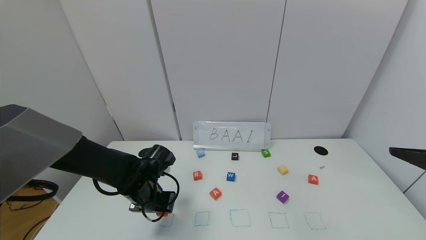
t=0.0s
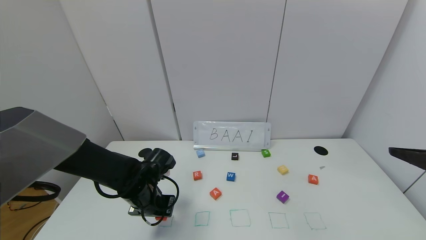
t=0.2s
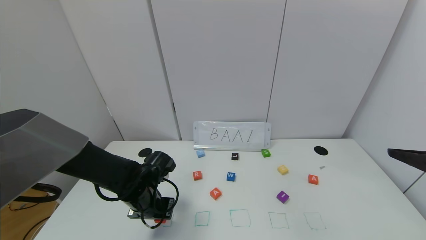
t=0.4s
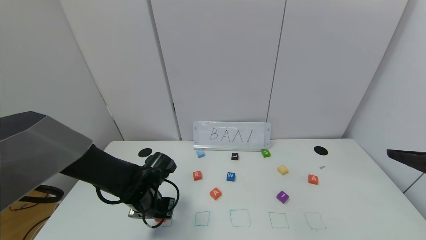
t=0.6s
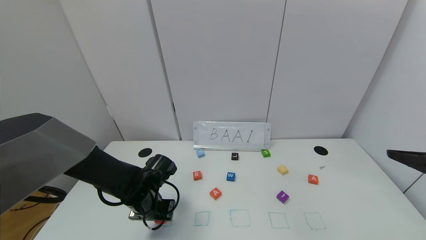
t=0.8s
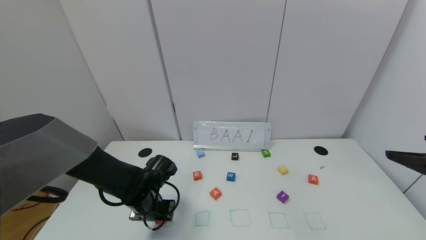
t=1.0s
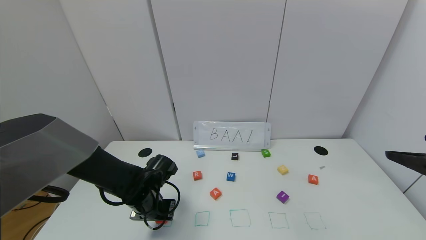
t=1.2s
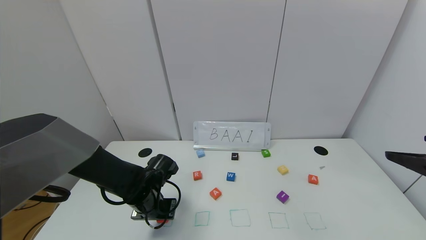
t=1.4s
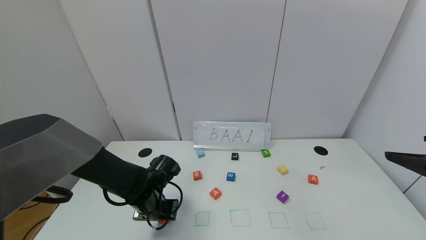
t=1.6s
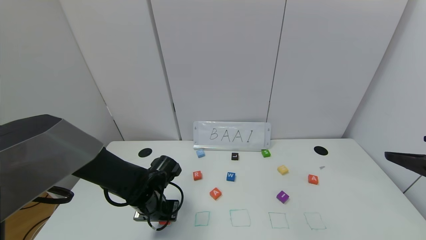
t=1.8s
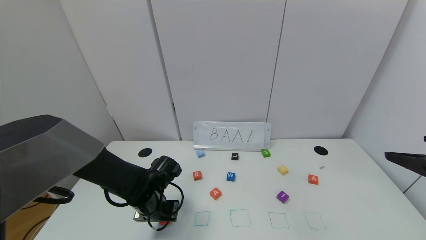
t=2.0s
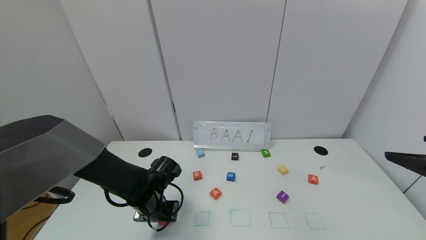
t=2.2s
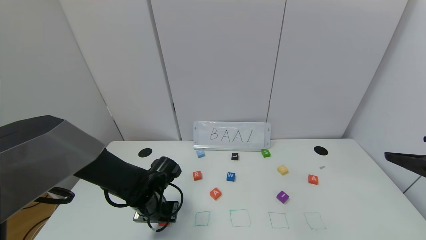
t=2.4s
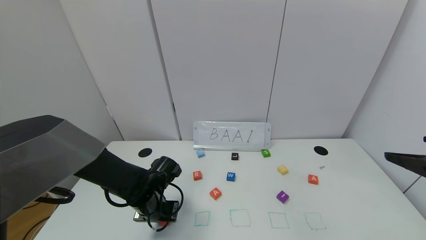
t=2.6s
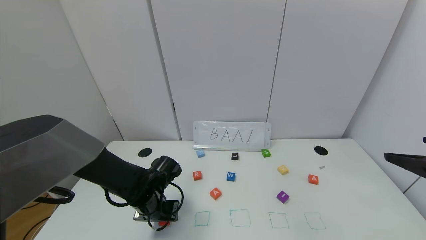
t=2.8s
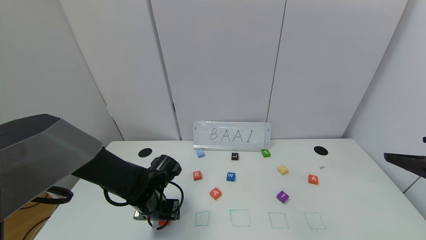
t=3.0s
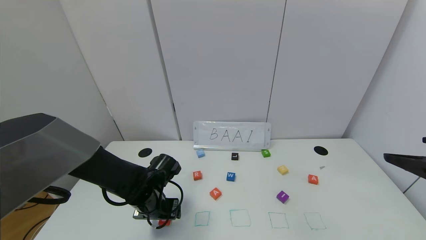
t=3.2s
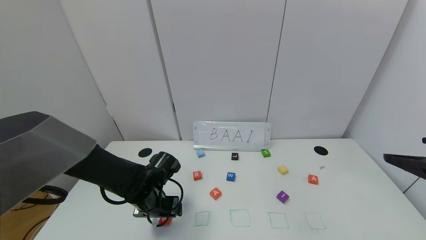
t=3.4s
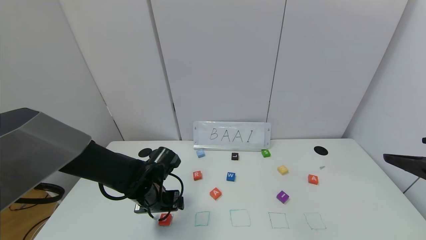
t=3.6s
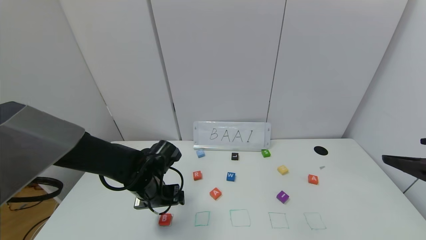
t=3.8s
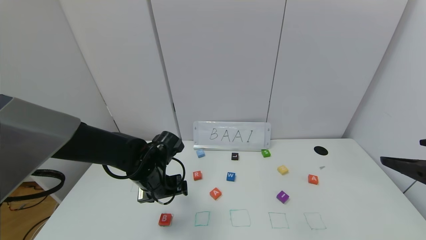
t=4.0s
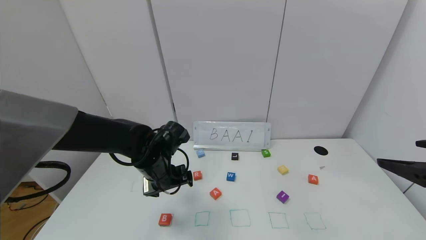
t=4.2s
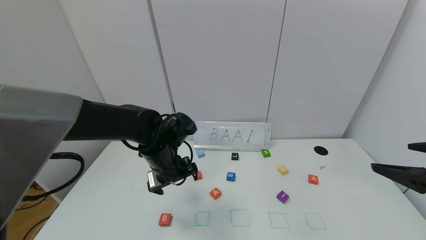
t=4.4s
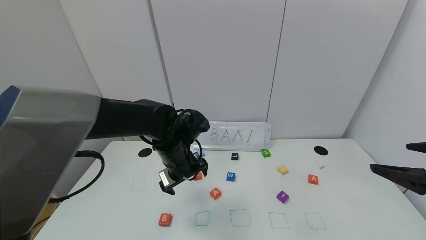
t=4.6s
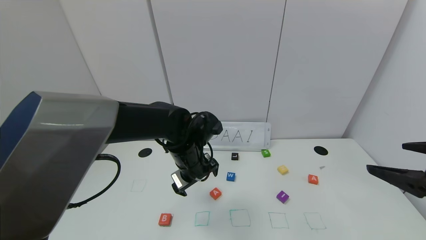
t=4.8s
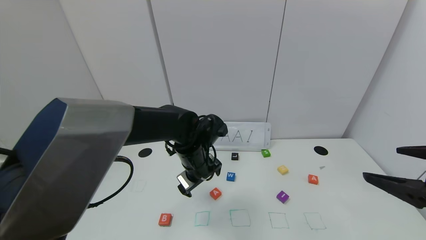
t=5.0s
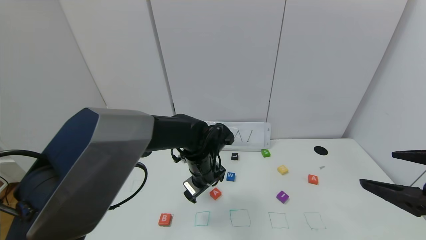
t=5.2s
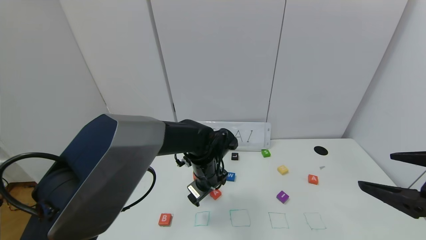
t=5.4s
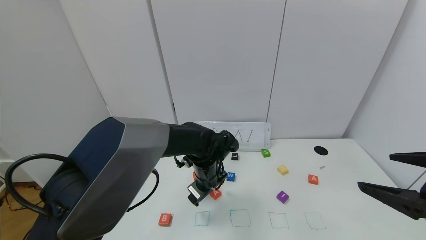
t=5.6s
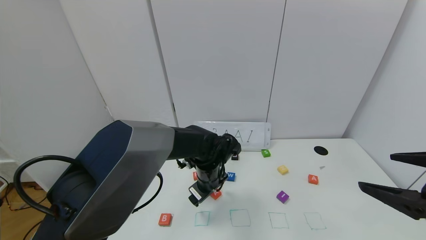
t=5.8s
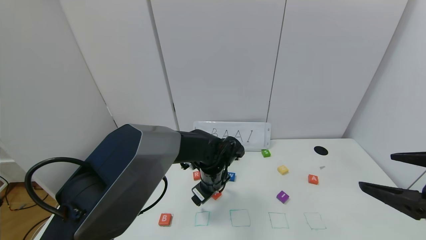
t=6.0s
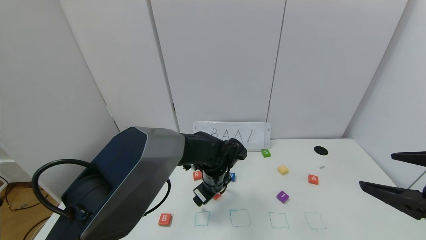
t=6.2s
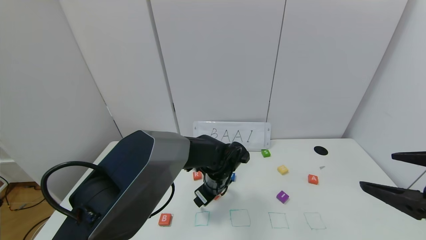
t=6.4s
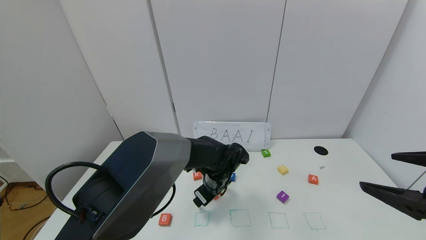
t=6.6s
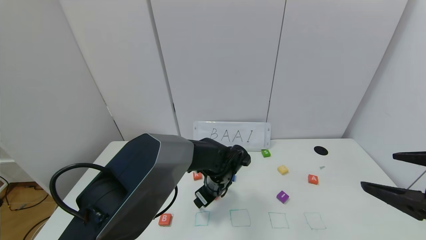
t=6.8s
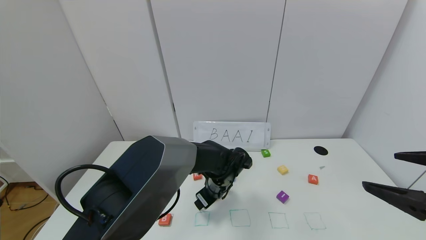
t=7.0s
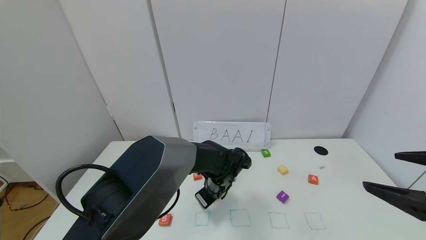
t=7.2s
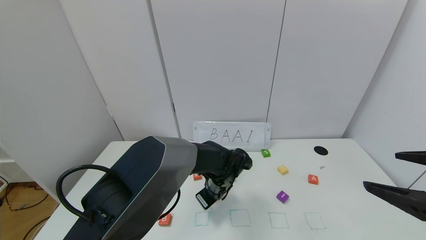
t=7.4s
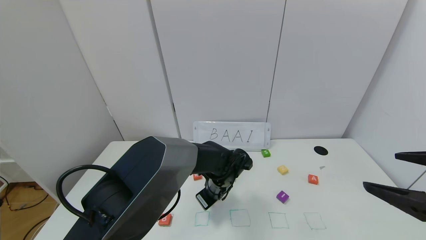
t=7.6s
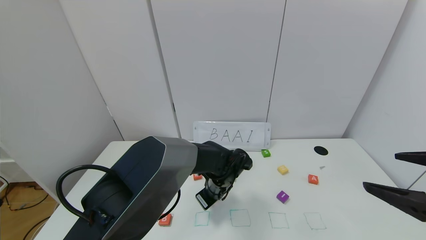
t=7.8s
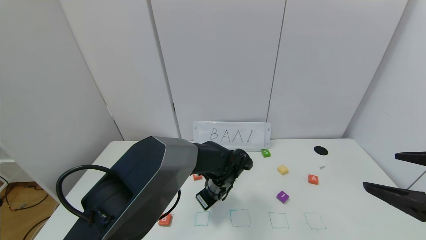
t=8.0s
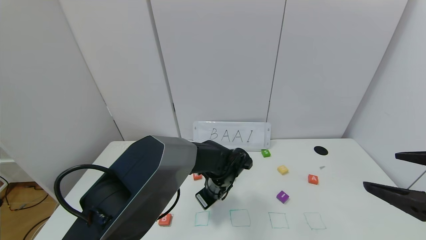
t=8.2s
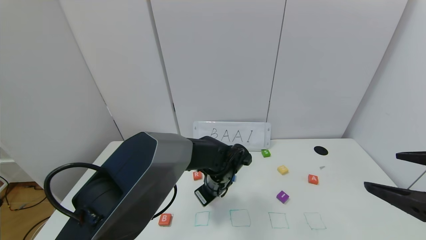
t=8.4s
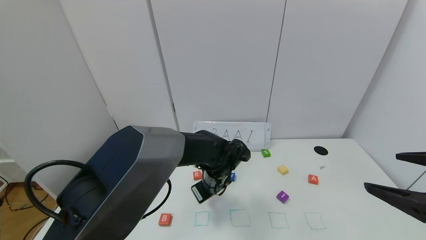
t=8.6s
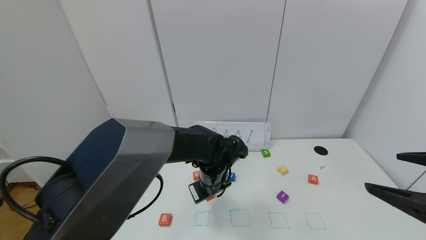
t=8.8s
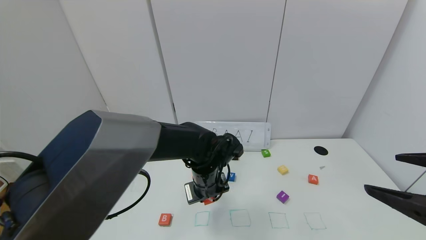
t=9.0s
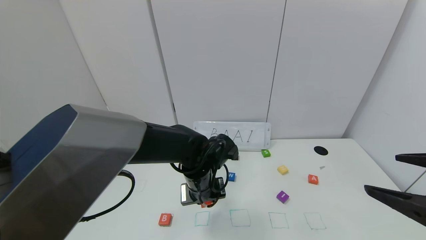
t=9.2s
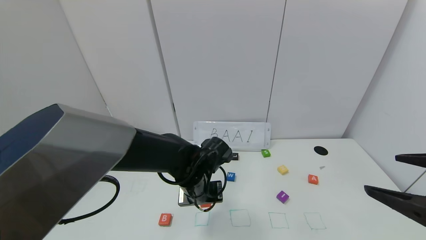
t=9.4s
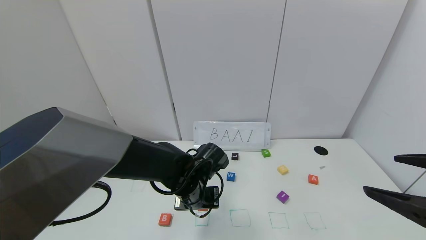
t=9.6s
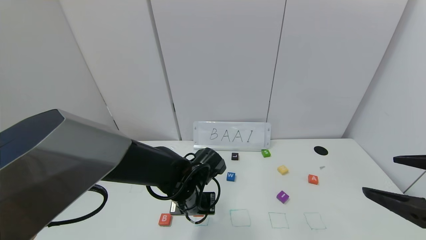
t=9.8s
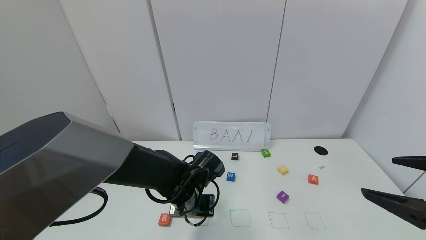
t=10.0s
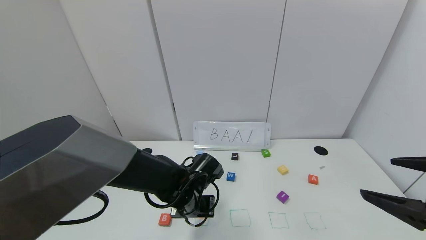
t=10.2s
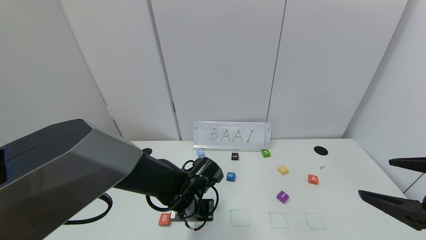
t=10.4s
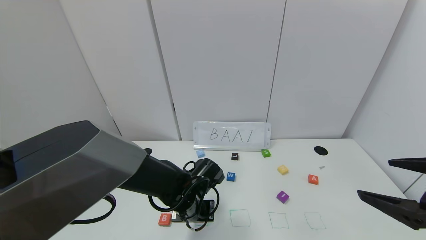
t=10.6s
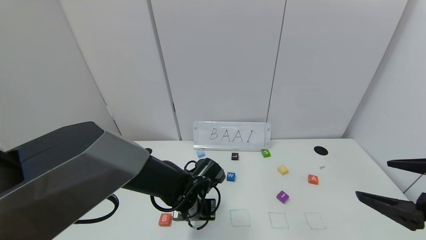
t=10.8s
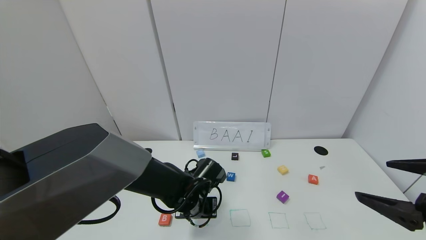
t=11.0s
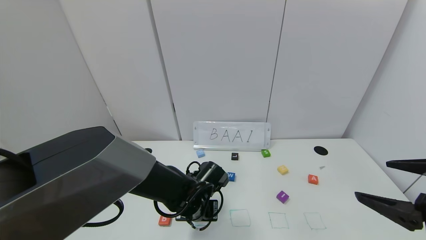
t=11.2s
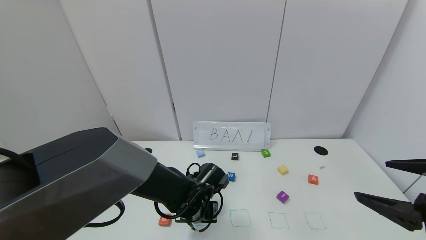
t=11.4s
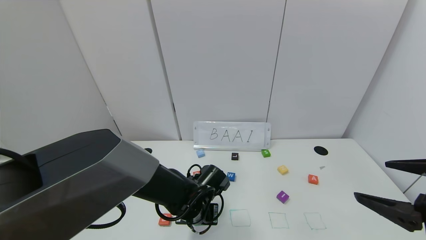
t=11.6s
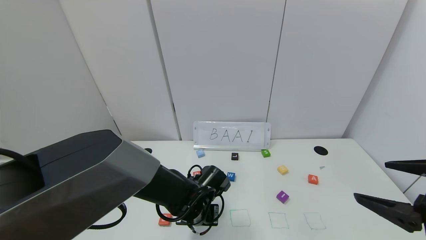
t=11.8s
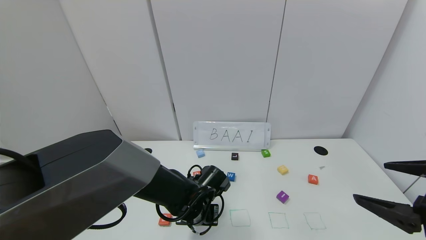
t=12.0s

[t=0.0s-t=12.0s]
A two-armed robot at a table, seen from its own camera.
Task of the whole recording: use the gripper to find blocks with the letters b, a, a, and i on the table and arrange them into BAAI, then find r and N and turn the arranged baai into brian.
Step, t=0.0s to t=3.0s: Place the block B in the first location.
t=0.0s to t=1.6s: There are only small adjustments of the grippers.
t=3.0s to t=4.4s: The left gripper moves upward, roughly 10 cm.
t=4.4s to t=6.0s: The left gripper is displaced to the right and downward by some 15 cm.
t=6.0s to t=7.6s: The left gripper closes up.
t=7.6s to t=9.0s: The left gripper heads upward, covering some 5 cm.
t=9.0s to t=10.4s: The left gripper is displaced downward by about 5 cm.
t=10.4s to t=12.0s: The grippers make only small movements.

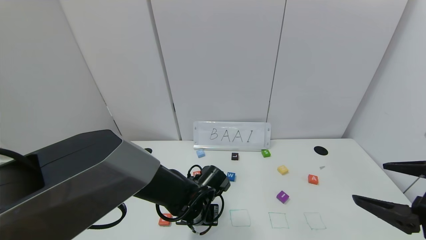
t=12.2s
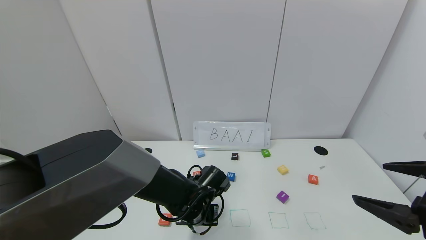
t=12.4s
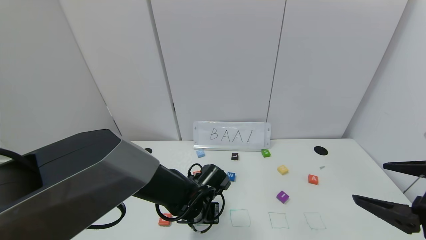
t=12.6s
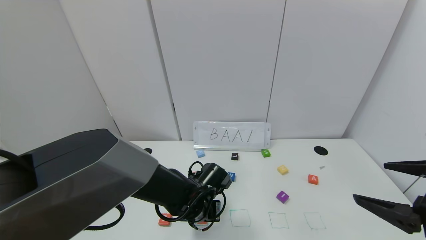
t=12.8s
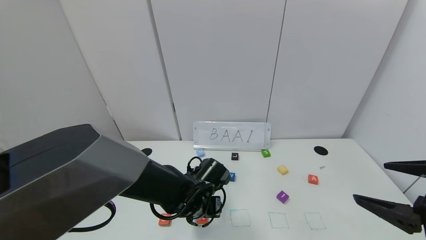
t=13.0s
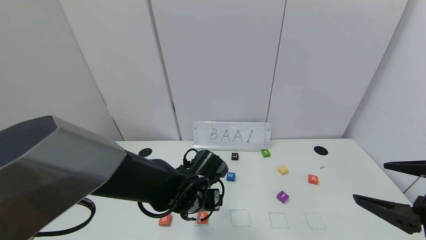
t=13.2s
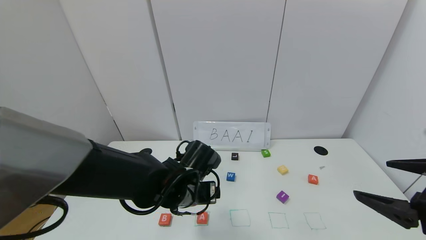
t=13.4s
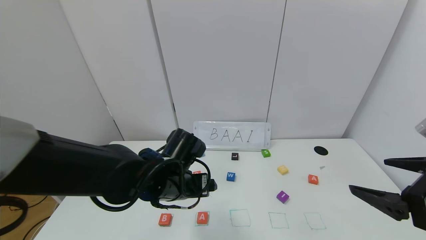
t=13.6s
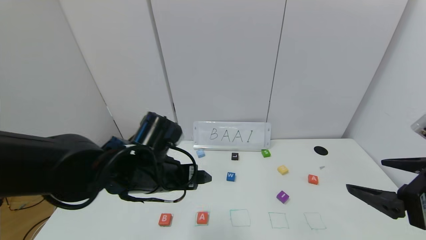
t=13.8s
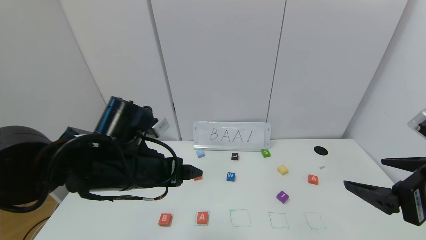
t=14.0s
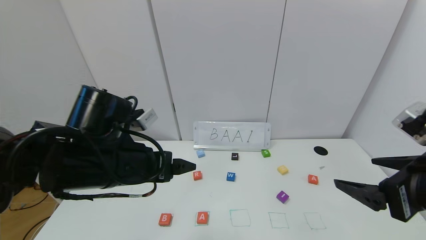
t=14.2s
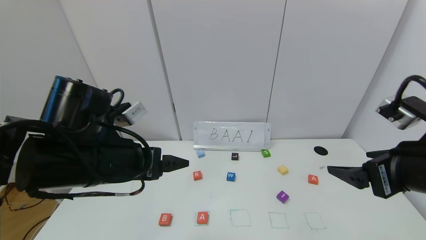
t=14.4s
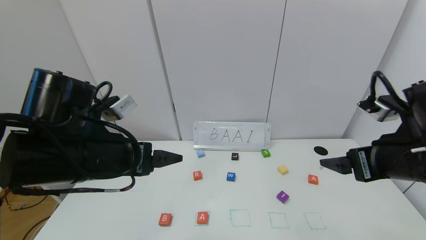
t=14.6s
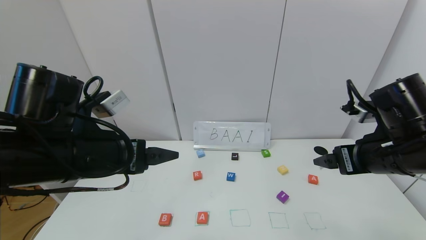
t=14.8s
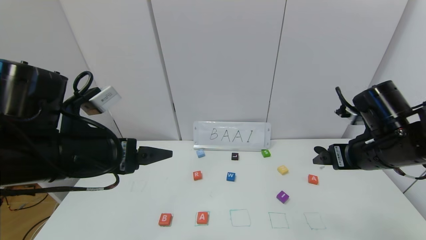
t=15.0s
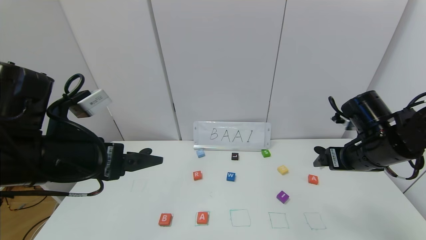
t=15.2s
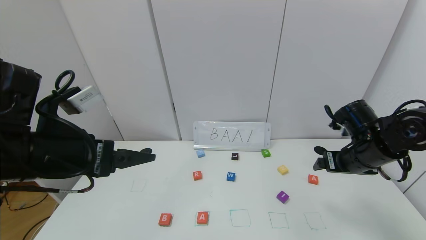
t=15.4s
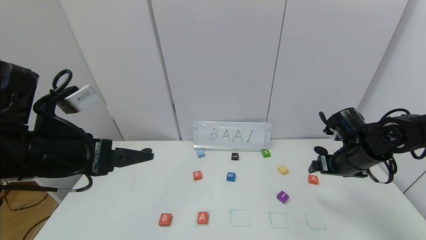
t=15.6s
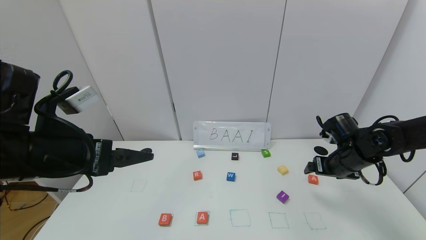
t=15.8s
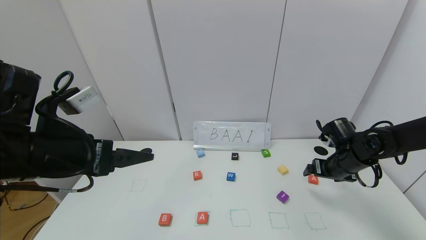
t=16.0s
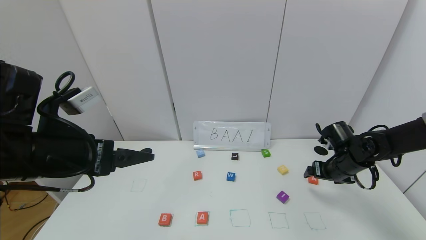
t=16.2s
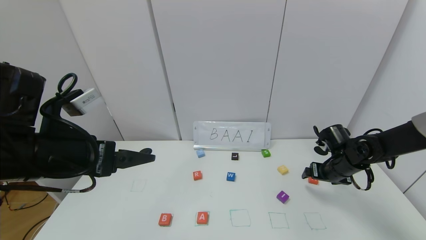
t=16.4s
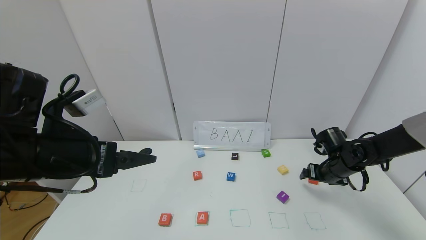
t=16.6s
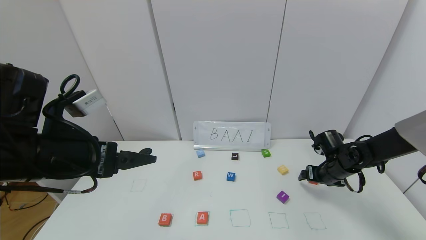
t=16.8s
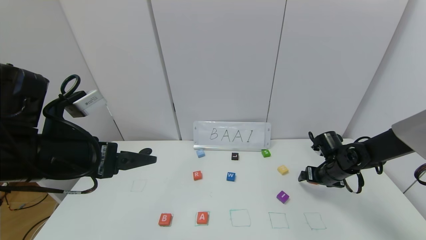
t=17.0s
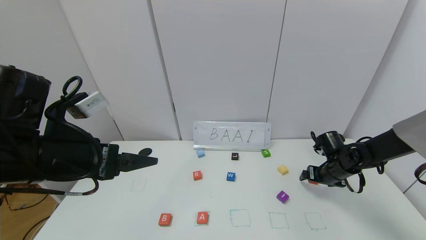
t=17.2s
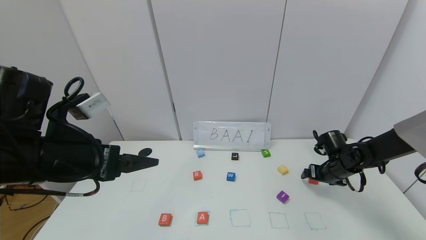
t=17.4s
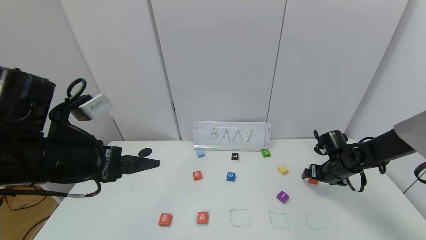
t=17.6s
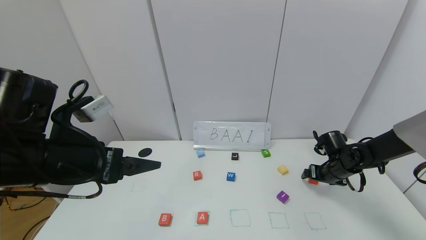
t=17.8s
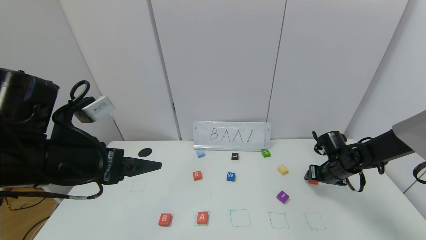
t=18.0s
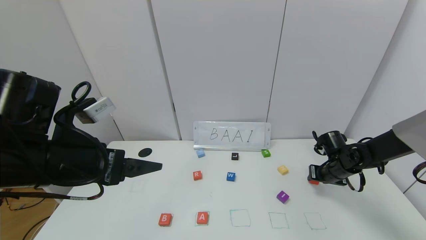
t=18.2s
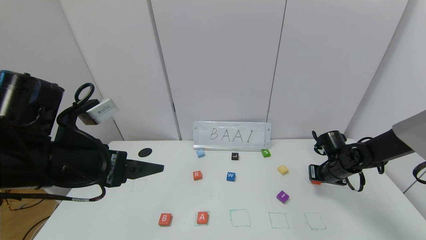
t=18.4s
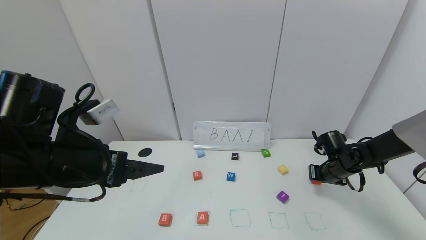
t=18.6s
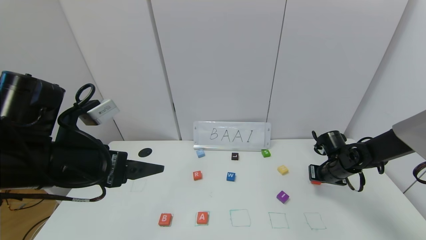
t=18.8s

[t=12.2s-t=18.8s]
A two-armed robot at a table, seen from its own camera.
Task of the whole recording: use the gripper to find blocks with the letters b, a, a, and i on the table and arrange them into BAAI, then find r and N and turn the arranged baai into brian.
t=12.2s to t=13.8s: The left gripper moves upward and to the left, approximately 15 cm, and opens up.
t=13.8s to t=15.4s: The left gripper heads to the left, upward and backward, covering approximately 15 cm. The right gripper heads forward and downward, covering roughly 20 cm.
t=15.4s to t=17.2s: The right gripper shifts roughly 15 cm downward and forward.
t=17.2s to t=18.8s: The right gripper closes up.
